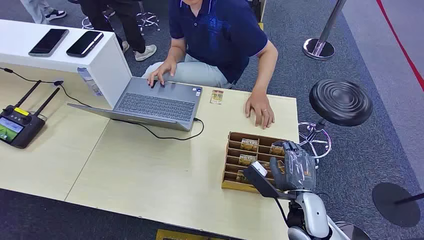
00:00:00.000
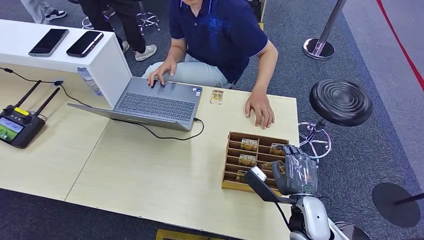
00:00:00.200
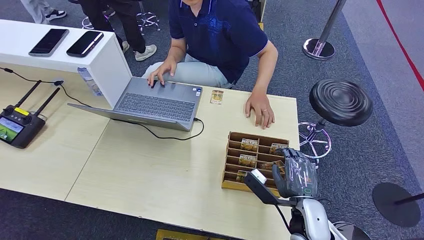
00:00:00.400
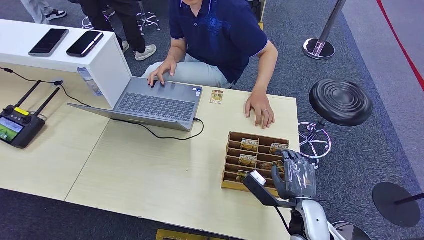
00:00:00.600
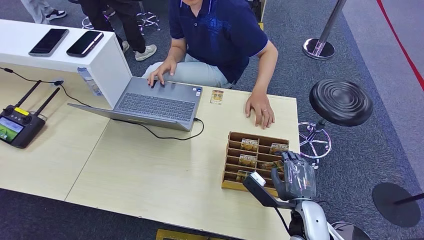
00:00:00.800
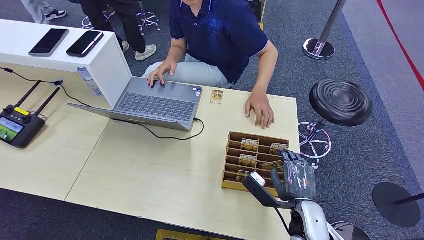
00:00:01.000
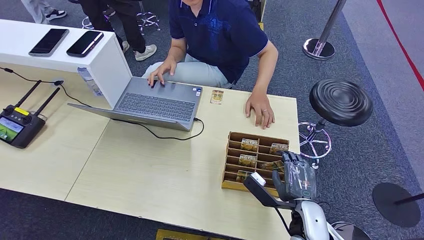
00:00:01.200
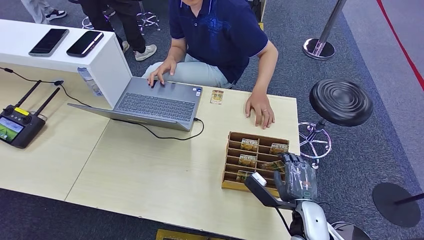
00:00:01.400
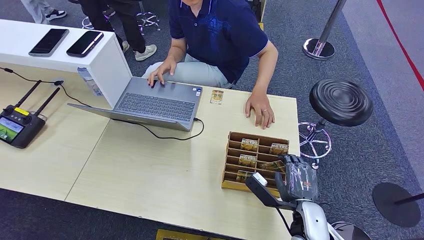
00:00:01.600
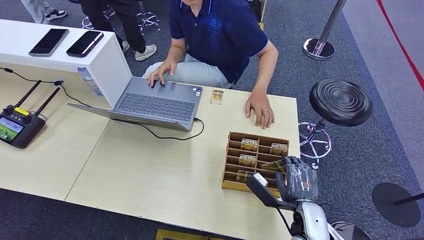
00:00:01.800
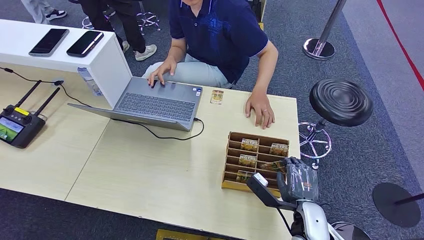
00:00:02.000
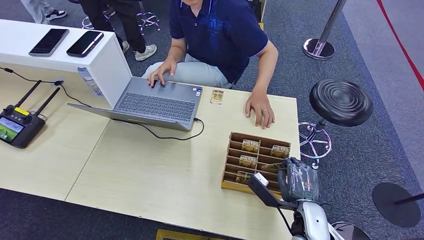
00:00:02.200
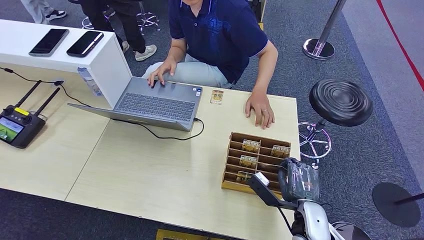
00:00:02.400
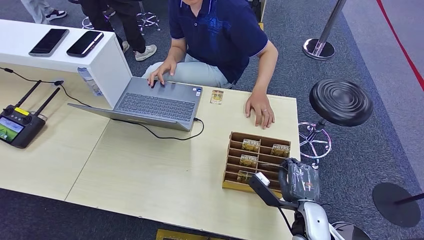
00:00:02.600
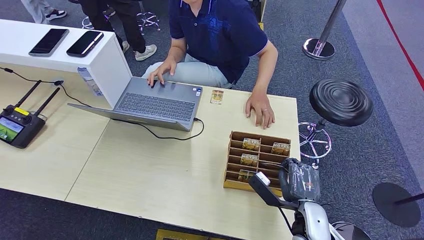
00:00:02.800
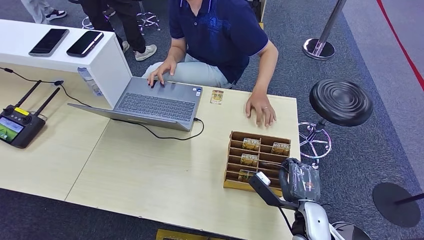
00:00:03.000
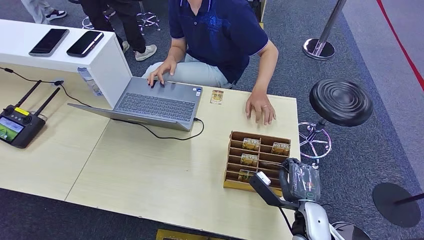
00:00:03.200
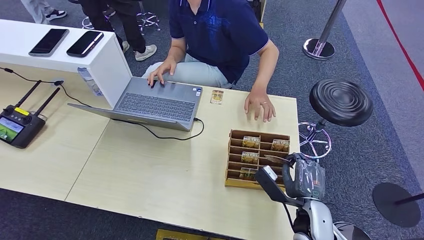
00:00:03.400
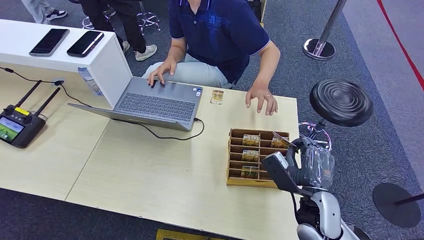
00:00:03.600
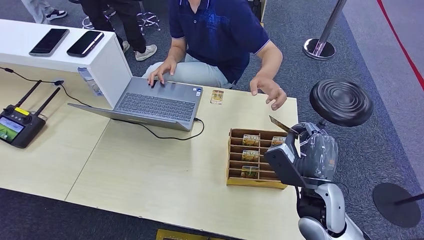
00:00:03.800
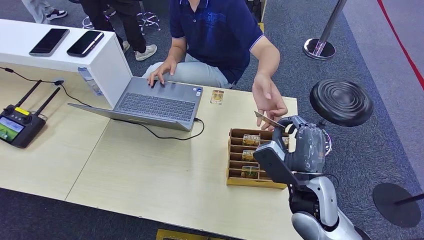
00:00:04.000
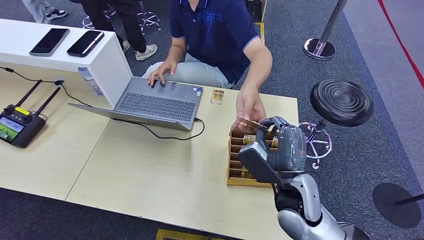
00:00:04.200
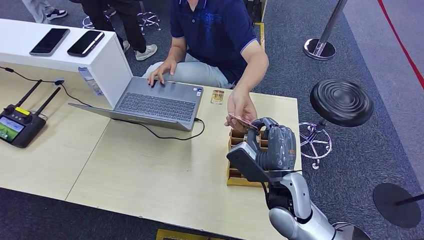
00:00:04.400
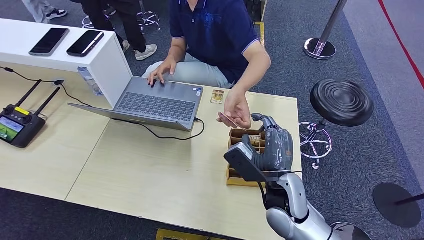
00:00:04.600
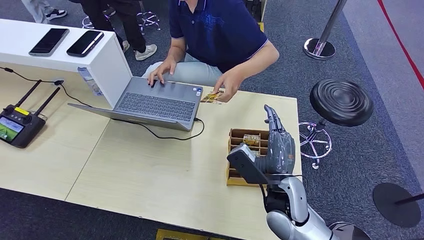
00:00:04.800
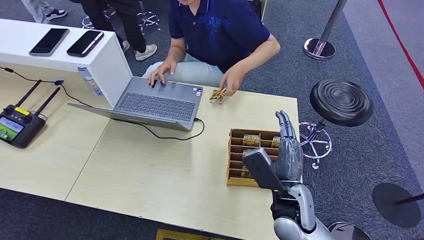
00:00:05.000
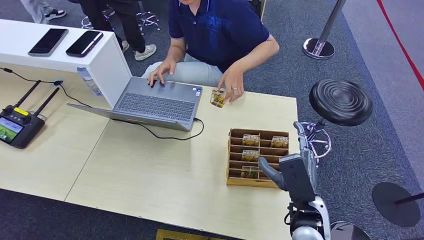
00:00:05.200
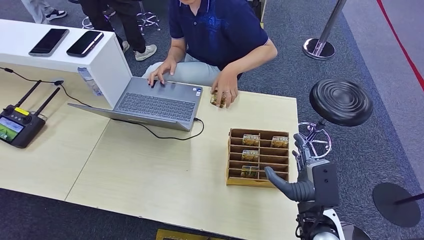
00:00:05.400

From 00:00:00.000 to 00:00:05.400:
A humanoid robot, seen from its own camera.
Step, from 00:00:00.000 to 00:00:03.600: Pick up the room card from the card holder.
Step, from 00:00:03.800 to 00:00:05.400: Hand the room card to the target.
From 00:00:01.400 to 00:00:02.800: Both hands stay about where they are.
From 00:00:02.800 to 00:00:04.000: The right hand travels upward by approximately 10 cm.
From 00:00:04.000 to 00:00:05.400: The right hand travels downward by roughly 5 cm.

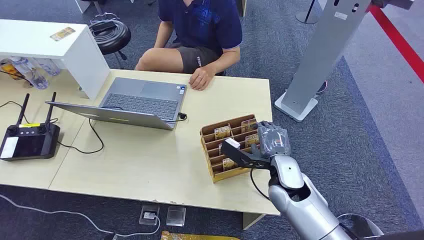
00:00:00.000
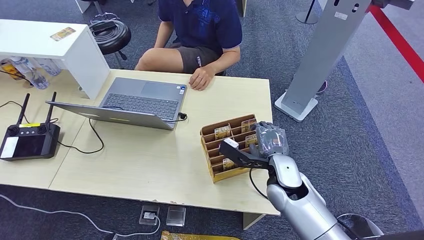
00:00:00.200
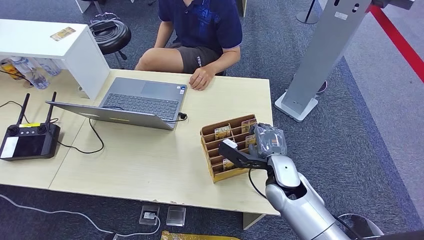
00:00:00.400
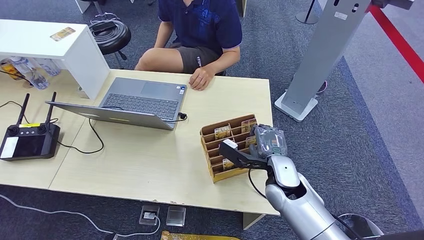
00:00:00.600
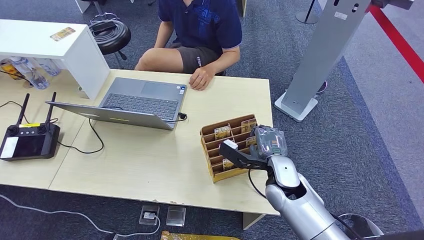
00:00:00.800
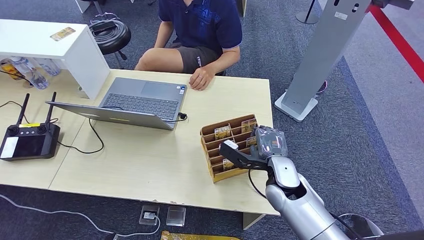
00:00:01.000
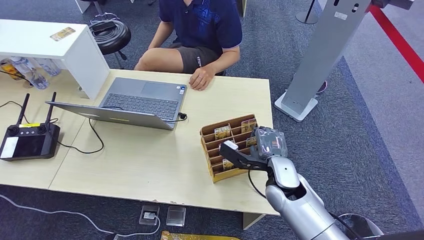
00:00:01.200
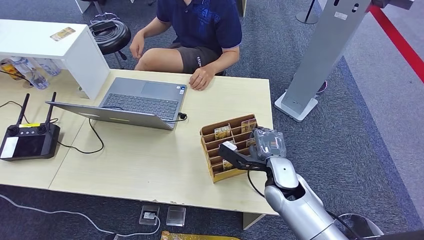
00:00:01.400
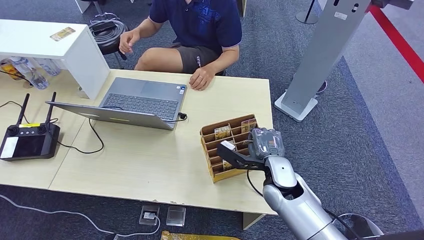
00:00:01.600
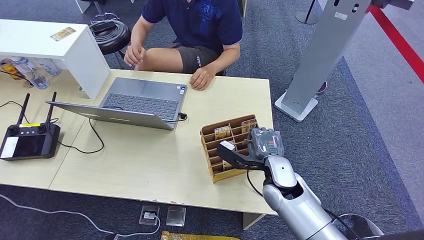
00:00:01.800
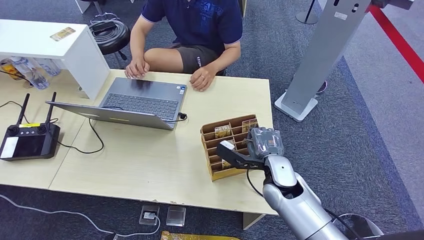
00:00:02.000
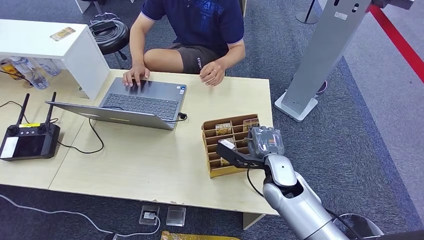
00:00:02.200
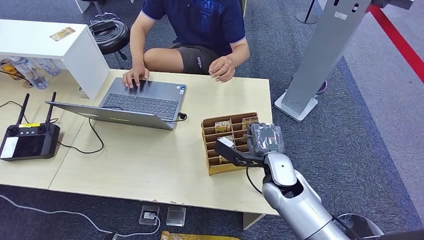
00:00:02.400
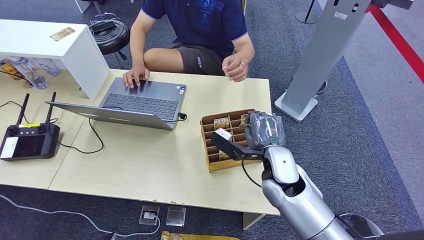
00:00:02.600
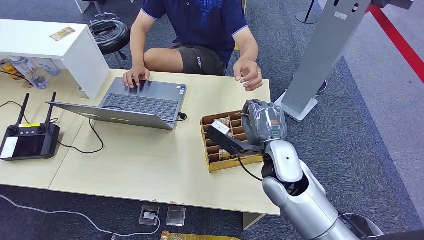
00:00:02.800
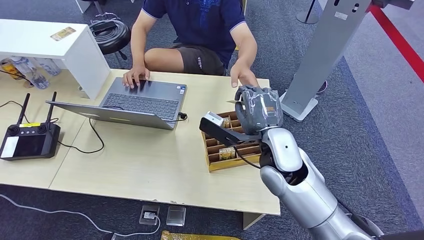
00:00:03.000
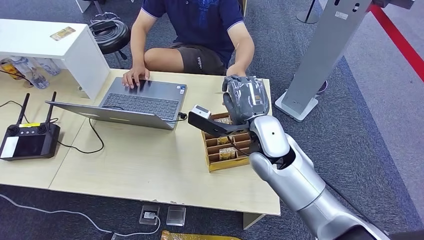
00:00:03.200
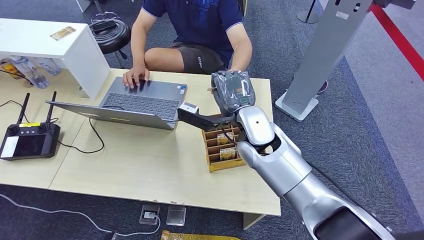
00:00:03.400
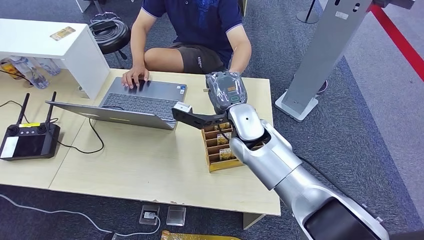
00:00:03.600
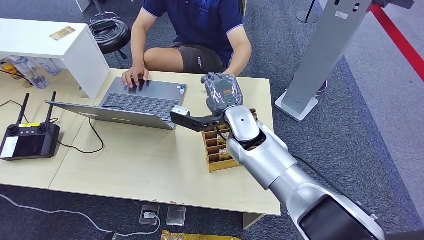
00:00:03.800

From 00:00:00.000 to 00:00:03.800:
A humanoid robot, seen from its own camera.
Step, from 00:00:00.000 to 00:00:02.400: Pick up the room card from the card holder.
Step, from 00:00:02.800 to 00:00:03.800: Hand the room card to the target.
From 00:00:01.200 to 00:00:02.600: The right hand shifts by roughly 5 cm.
From 00:00:02.600 to 00:00:03.800: The right hand travels to the left, forward and upward by approximately 15 cm.
